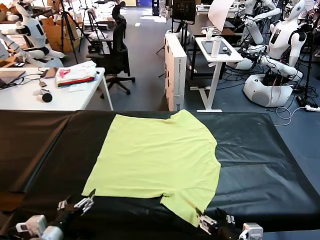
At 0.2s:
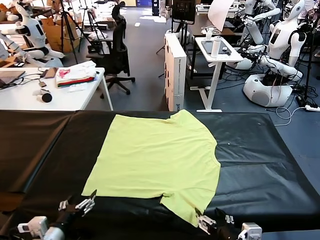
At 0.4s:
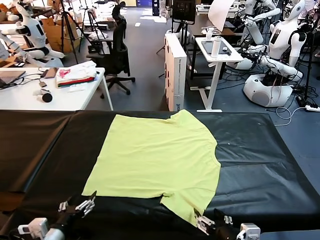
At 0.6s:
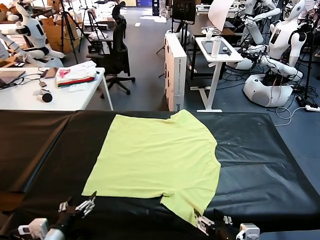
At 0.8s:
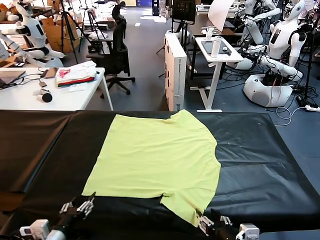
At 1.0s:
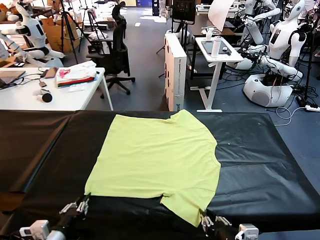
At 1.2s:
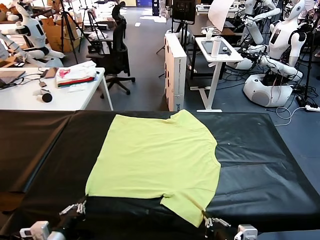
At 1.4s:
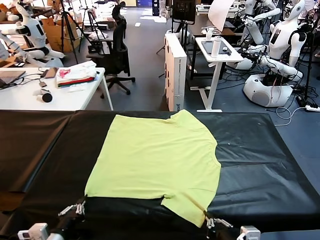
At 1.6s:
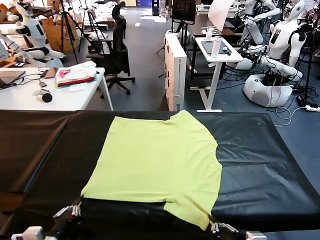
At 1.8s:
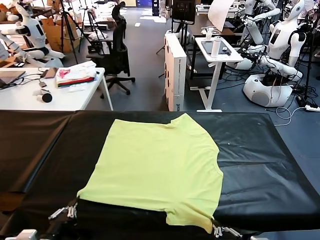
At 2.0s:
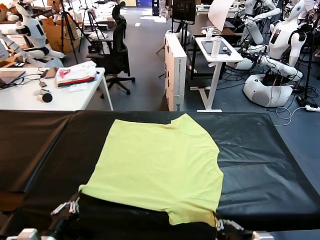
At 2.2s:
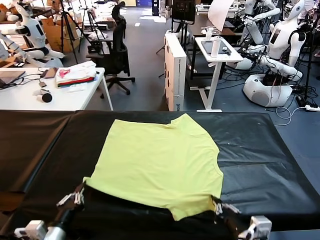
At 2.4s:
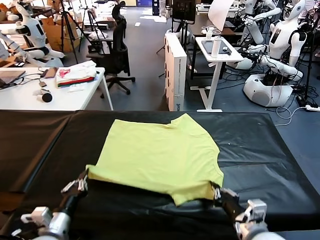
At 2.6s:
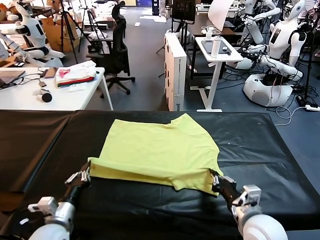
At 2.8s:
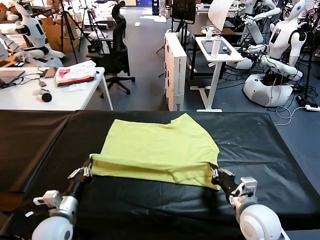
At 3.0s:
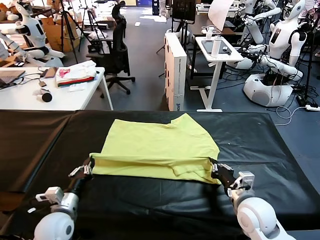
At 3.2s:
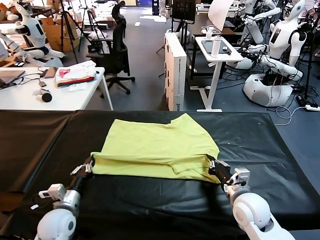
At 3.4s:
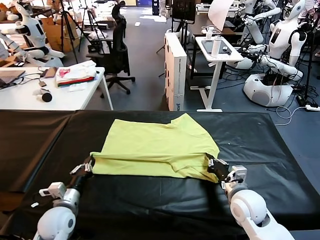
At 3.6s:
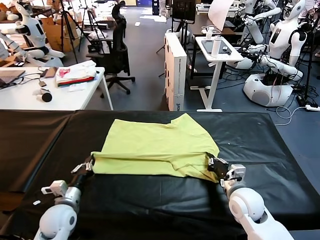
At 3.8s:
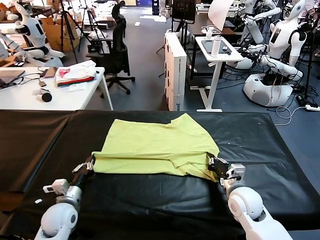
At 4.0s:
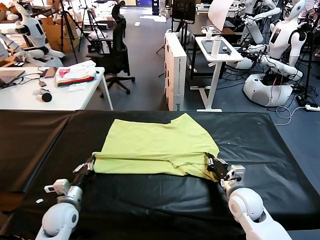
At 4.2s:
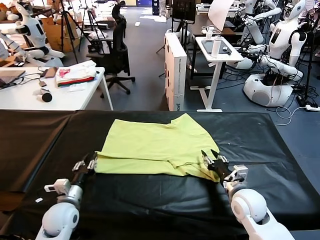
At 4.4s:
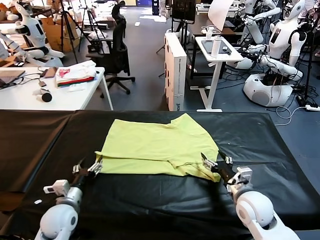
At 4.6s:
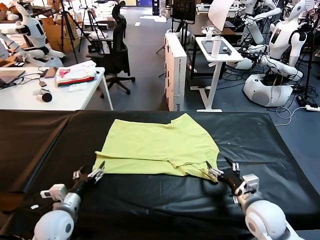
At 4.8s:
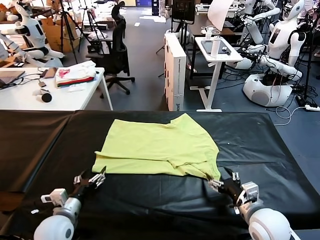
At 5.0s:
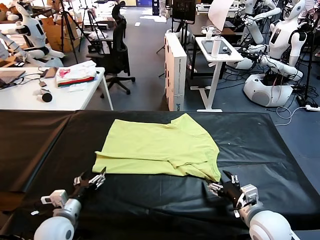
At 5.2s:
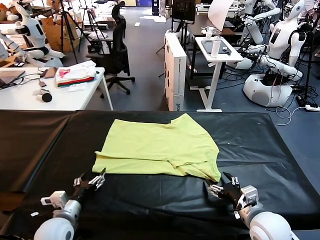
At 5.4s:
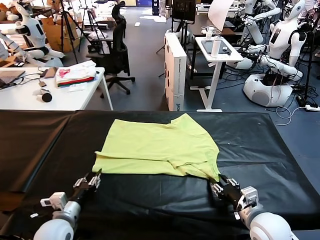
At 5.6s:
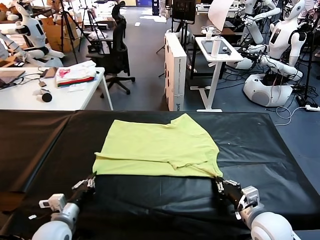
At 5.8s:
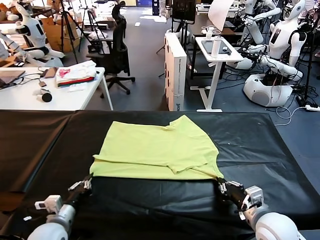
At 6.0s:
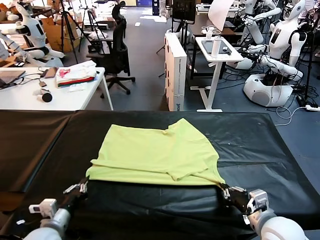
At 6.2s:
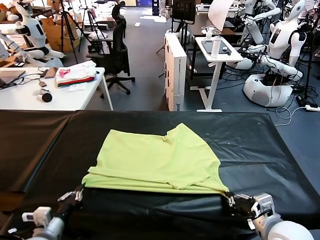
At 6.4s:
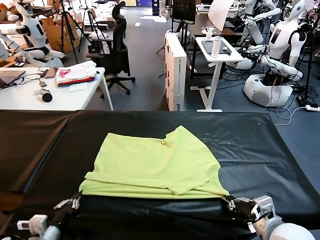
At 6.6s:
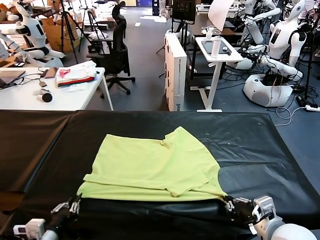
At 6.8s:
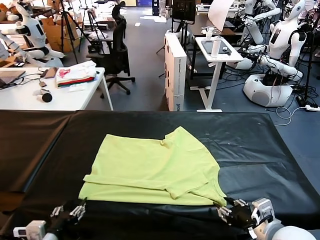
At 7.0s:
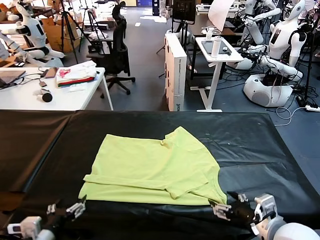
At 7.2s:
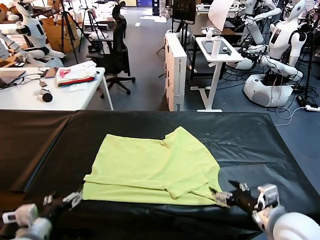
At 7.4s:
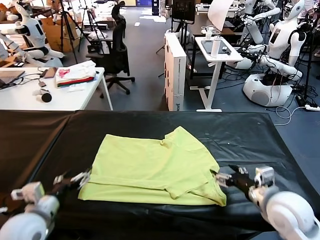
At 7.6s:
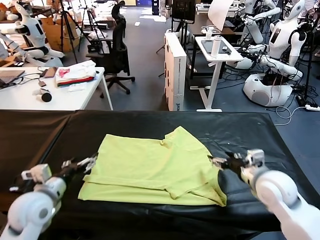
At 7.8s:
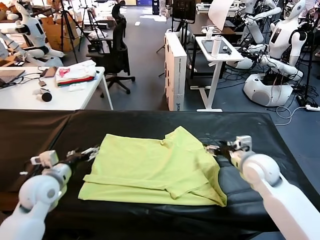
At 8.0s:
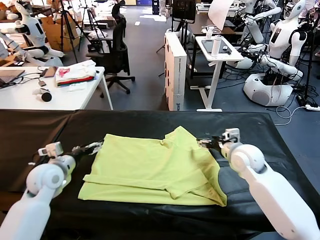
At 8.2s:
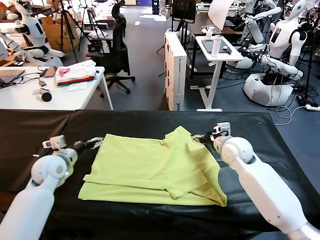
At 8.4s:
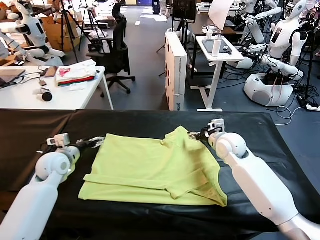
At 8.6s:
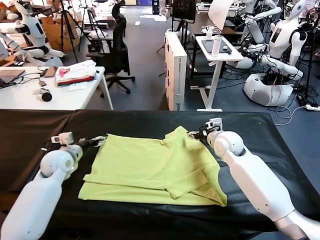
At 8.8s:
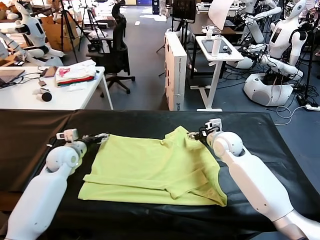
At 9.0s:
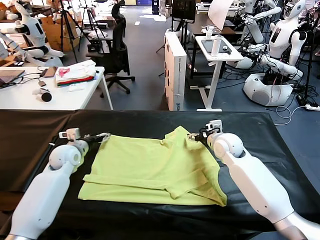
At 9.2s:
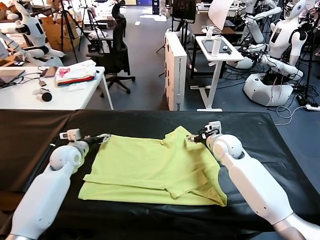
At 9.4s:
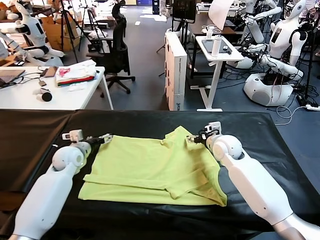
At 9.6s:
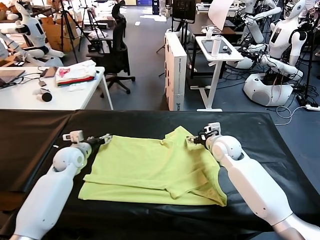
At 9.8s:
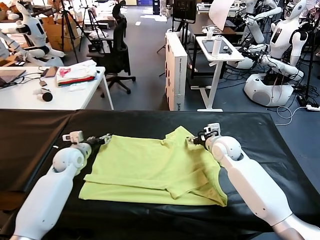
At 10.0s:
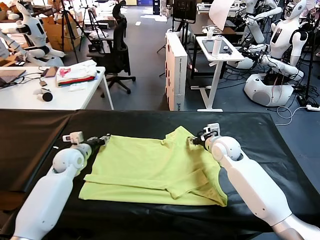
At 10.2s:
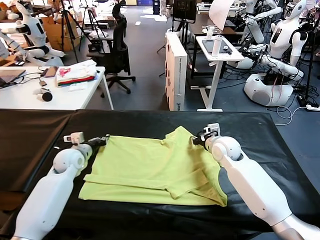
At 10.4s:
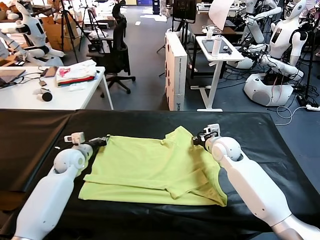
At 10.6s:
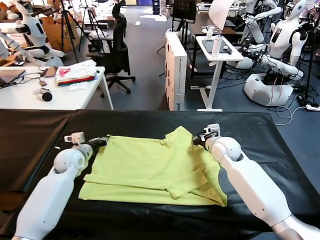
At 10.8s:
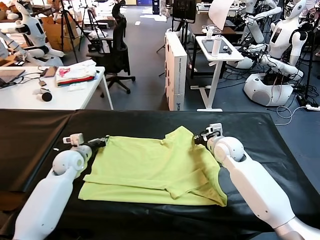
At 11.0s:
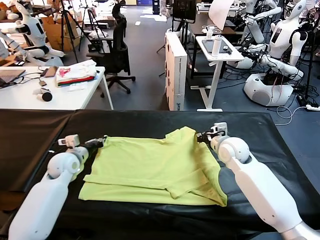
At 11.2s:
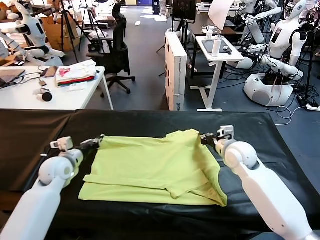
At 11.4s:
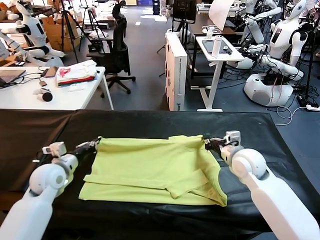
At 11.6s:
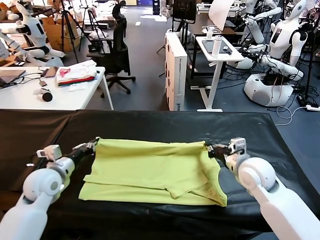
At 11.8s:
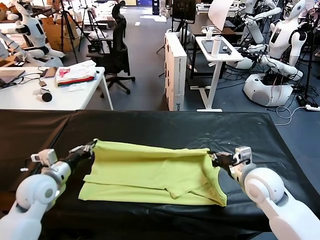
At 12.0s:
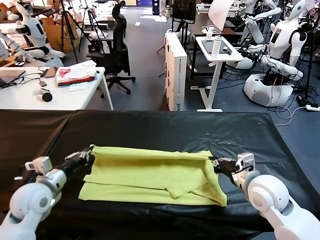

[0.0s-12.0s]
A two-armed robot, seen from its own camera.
Task of the whole recording: fold and organize the clothes.
Step, 0.0s to 1.4s: use both grippers simultaneously to clamp the lower edge of the clothing fabric.
Step, 1.6s to 4.2s: use both grippers to drag the lower edge of the fabric forward and fold it over the upper edge.
Step, 4.6s to 6.8s: Drag the clothes downward with both gripper.
Step, 7.0s to 10.8s: use both grippers simultaneously to clamp the upper edge of the clothing fabric.
1.6s to 3.0s: The grippers both shift forward by about 15 cm.
3.0s to 4.4s: The right gripper opens, while the left gripper opens up.
4.4s to 6.0s: Both grippers travel together backward, about 5 cm. The left gripper closes up. The right gripper closes its fingers.
6.0s to 7.6s: The right gripper shifts some 20 cm forward, and opens up. The left gripper is displaced forward and upward by about 15 cm, and opens its fingers.
7.6s to 9.0s: The left gripper moves forward, about 15 cm. The right gripper is displaced forward and to the left by some 15 cm.
9.0s to 10.4s: The left gripper closes up. Meanwhile the right gripper closes up.
10.4s to 12.0s: Both grippers move backward, some 20 cm.

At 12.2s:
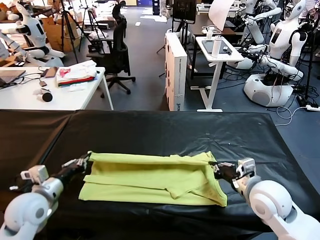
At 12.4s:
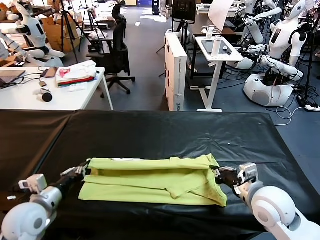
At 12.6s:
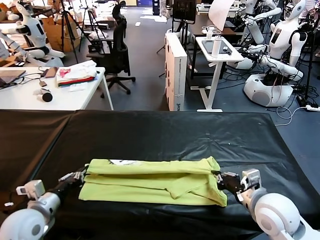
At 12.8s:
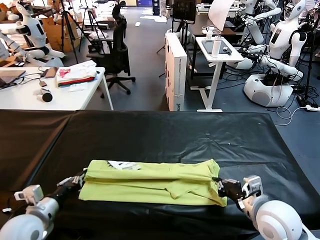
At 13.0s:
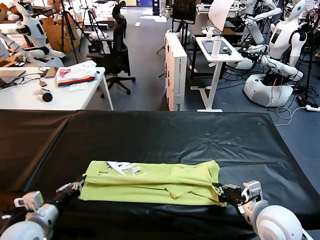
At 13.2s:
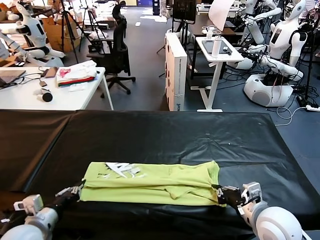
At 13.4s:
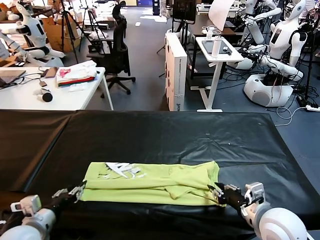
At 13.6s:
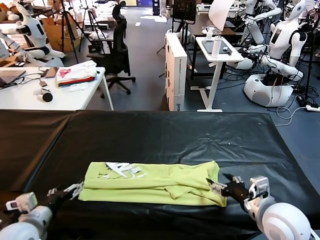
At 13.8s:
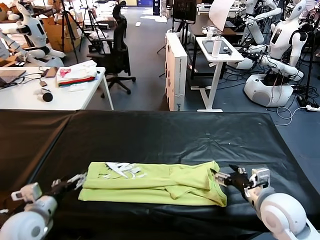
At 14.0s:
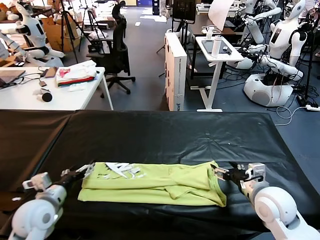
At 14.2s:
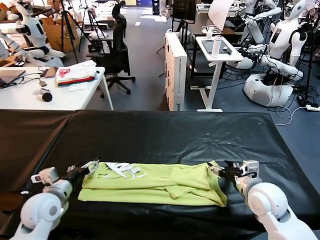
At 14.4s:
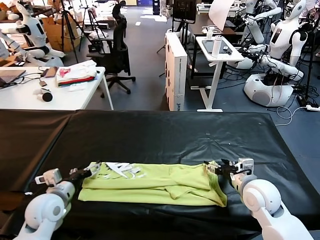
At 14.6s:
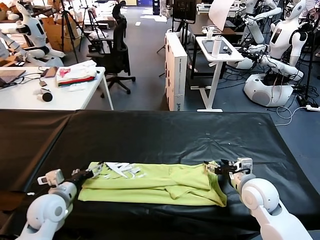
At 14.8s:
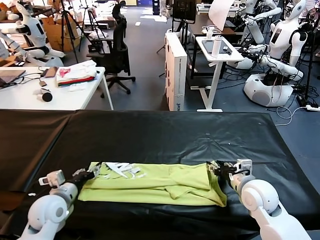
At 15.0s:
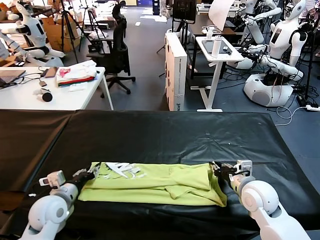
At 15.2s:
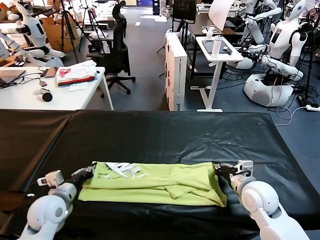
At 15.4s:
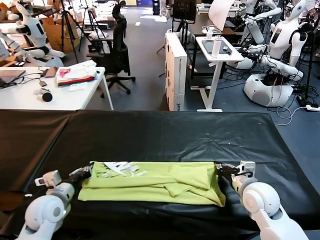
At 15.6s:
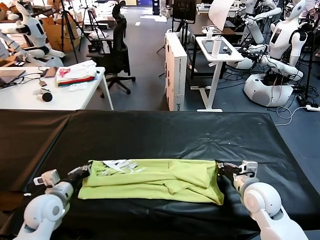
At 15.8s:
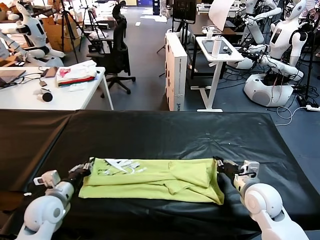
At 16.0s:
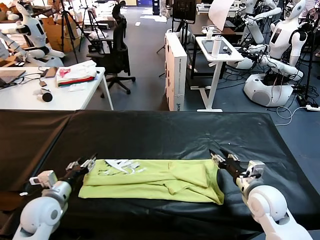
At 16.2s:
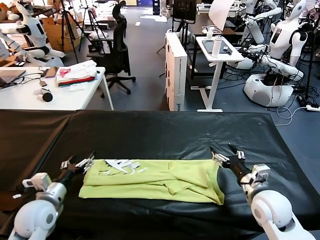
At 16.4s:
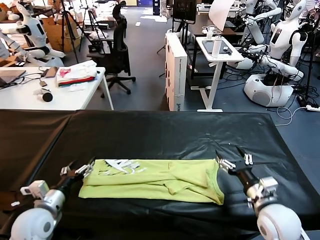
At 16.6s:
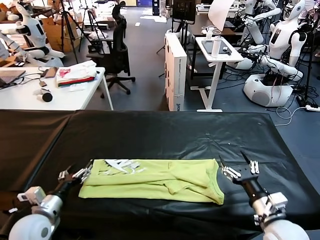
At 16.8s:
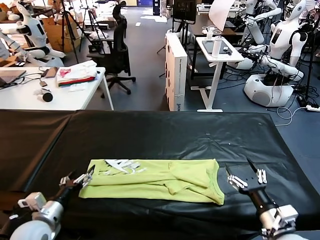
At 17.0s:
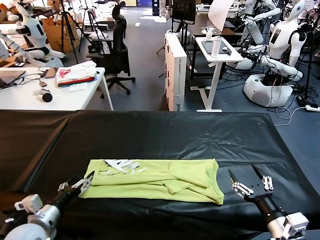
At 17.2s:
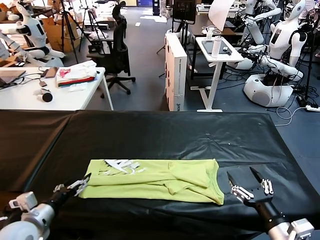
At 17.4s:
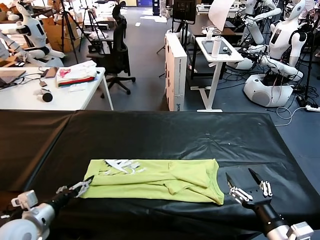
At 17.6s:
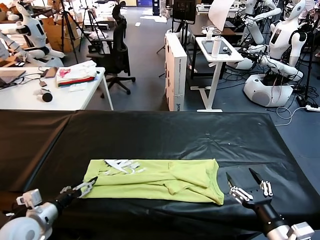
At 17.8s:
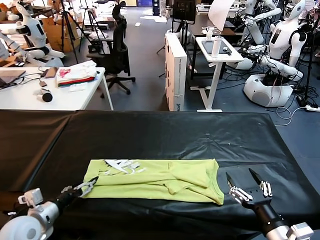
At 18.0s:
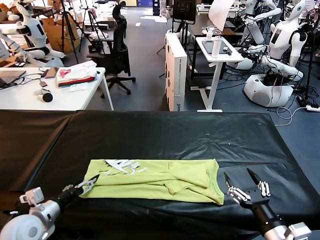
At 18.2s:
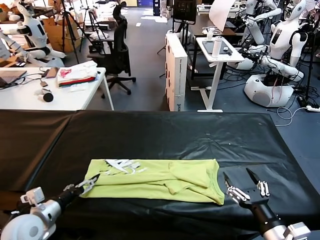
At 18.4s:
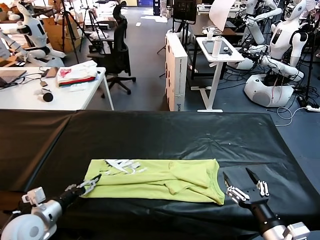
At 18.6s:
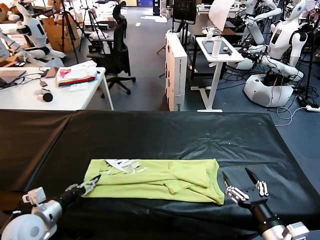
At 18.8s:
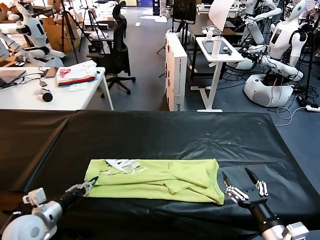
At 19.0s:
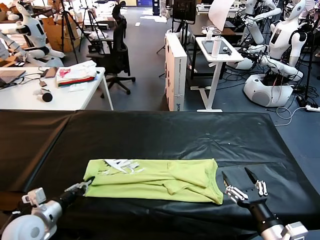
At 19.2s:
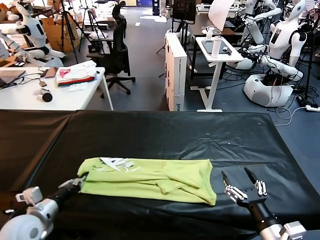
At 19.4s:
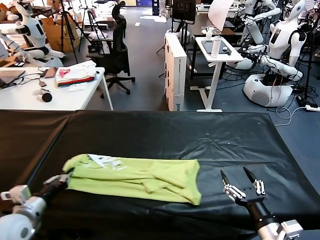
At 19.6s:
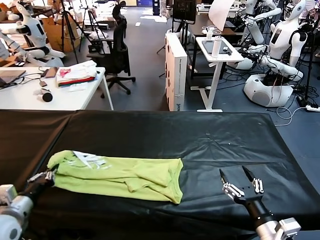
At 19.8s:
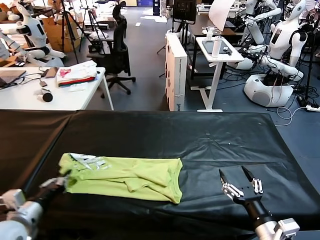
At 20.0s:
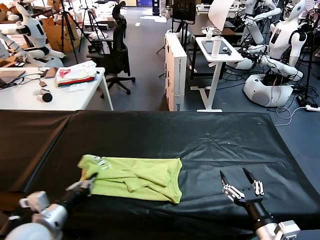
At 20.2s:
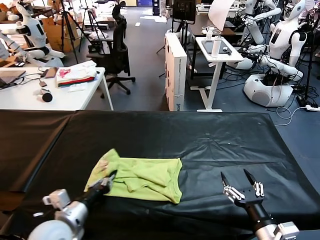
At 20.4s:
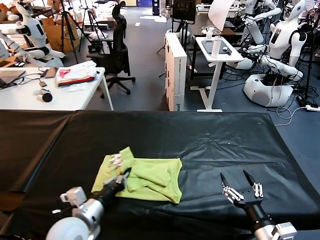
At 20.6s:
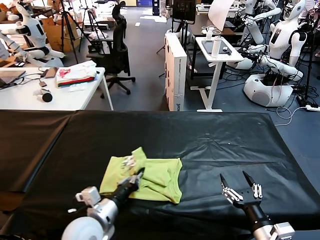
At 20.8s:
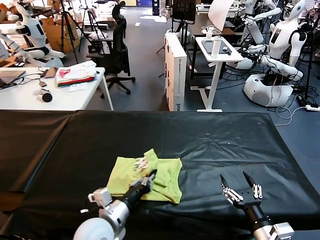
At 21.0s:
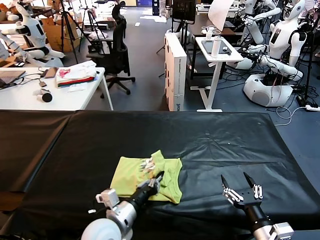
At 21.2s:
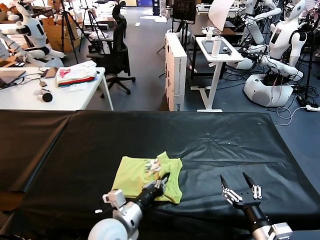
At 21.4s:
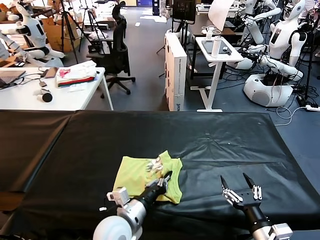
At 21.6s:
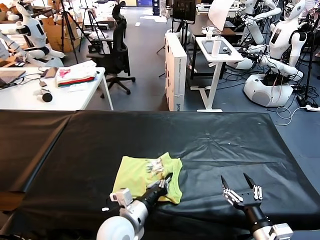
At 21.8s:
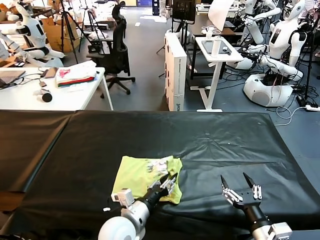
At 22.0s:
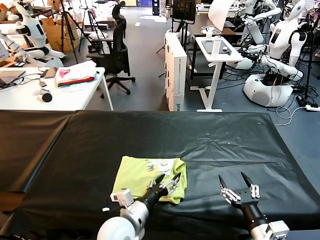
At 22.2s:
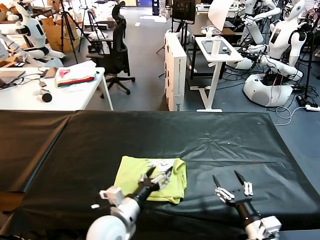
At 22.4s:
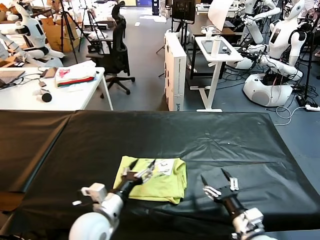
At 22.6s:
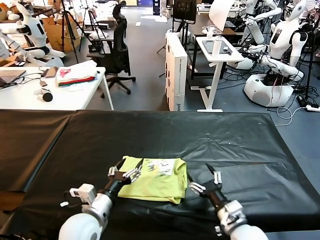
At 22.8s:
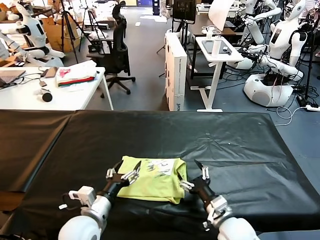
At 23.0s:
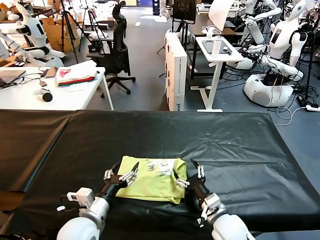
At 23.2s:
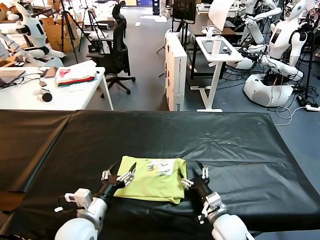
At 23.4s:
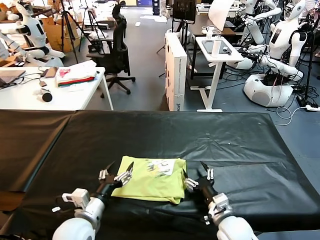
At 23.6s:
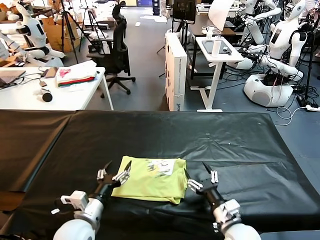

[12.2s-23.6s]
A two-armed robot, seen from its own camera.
Task of the whole recording: fold and organize the clothes.
Step, 12.2s to 13.6s: use both grippers to drag the upper edge of the fabric backward and fold it over the lower edge.
Step, 13.8s to 19.0s: use the left gripper to clamp the left edge of the fabric.
Step, 19.2s to 21.8s: use the left gripper to drag the left edge of the fabric to the left and folds it over the right edge.
12.2s to 13.6s: The left gripper moves backward, roughly 5 cm, and opens its fingers. Meanwhile the right gripper opens up.
13.6s to 15.0s: The left gripper heads forward, covering some 10 cm, and closes its fingers. The right gripper shifts roughly 10 cm forward and downward, and closes its fingers.
15.0s to 16.4s: The right gripper heads backward, covering some 10 cm, and opens its fingers, while the left gripper opens its fingers.
16.4s to 17.8s: The right gripper heads backward, covering approximately 10 cm.
17.8s to 19.4s: The left gripper closes its fingers.
19.4s to 20.8s: The left gripper goes about 25 cm to the right.
20.8s to 22.2s: The left gripper opens up.
22.2s to 23.6s: The left gripper is displaced to the left by approximately 10 cm. Meanwhile the right gripper is displaced forward, to the left and downward by about 10 cm.
